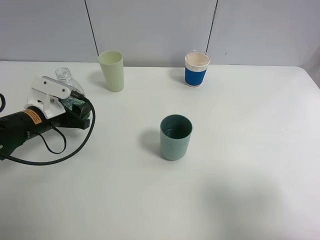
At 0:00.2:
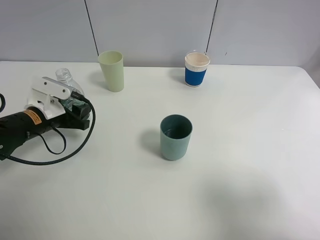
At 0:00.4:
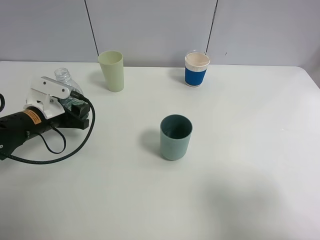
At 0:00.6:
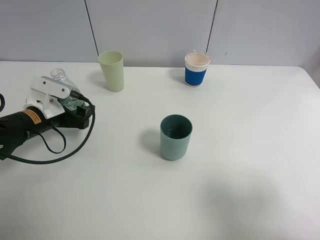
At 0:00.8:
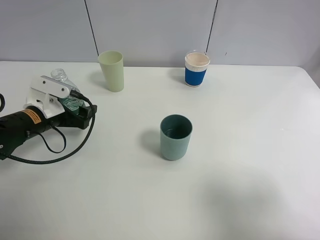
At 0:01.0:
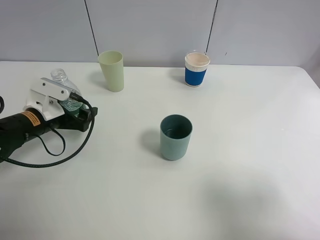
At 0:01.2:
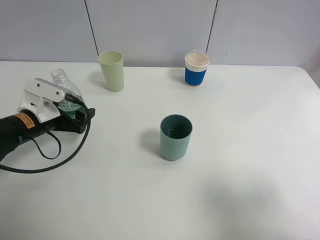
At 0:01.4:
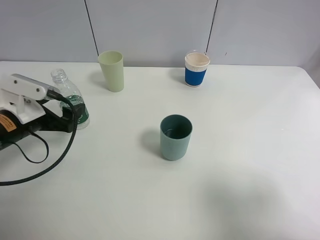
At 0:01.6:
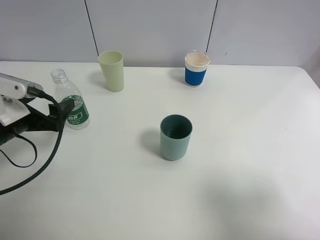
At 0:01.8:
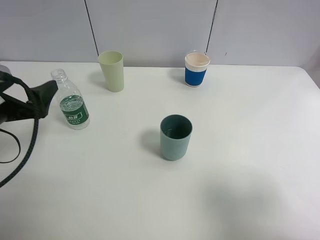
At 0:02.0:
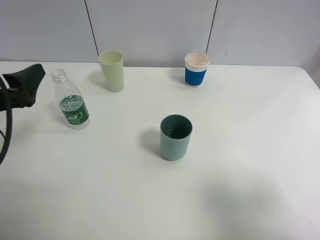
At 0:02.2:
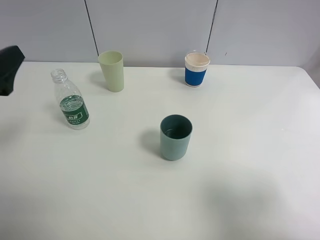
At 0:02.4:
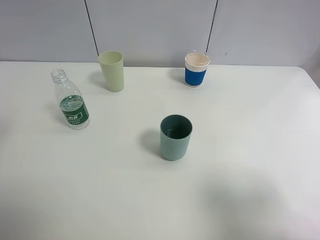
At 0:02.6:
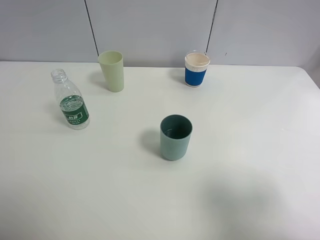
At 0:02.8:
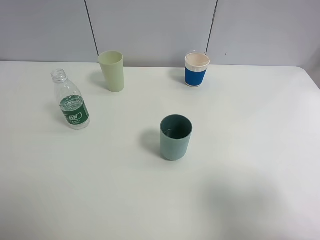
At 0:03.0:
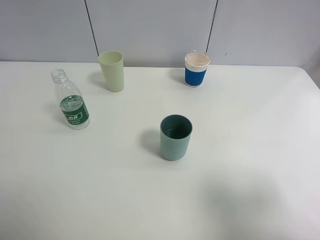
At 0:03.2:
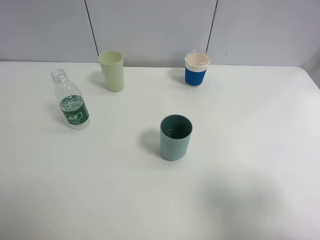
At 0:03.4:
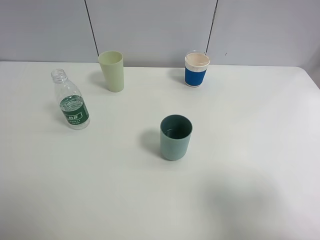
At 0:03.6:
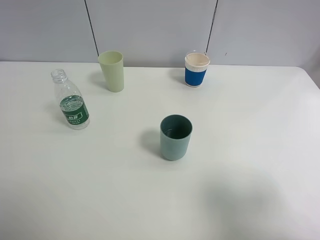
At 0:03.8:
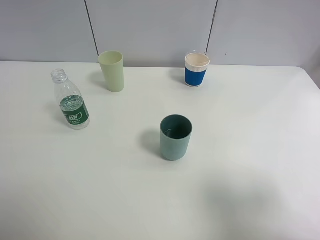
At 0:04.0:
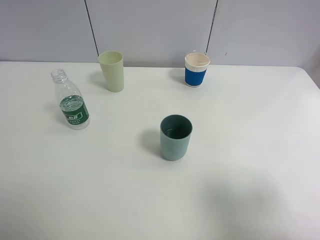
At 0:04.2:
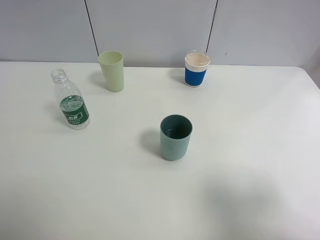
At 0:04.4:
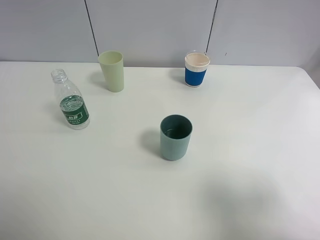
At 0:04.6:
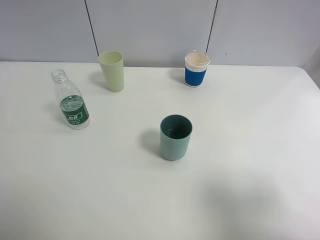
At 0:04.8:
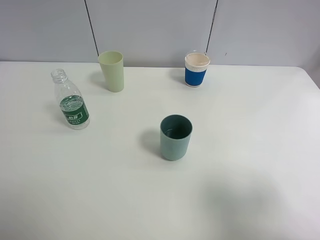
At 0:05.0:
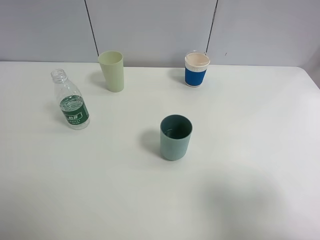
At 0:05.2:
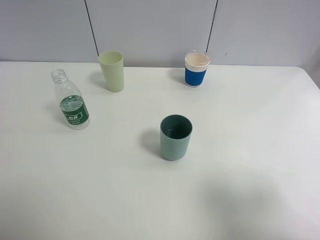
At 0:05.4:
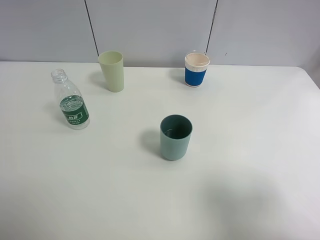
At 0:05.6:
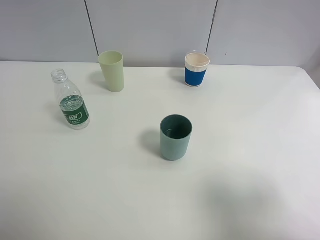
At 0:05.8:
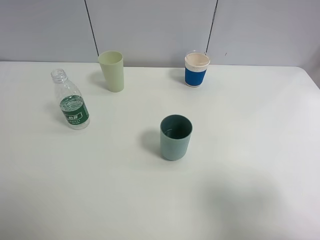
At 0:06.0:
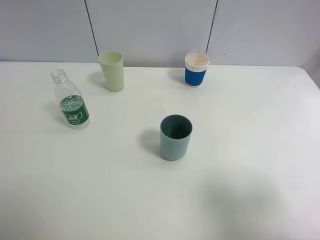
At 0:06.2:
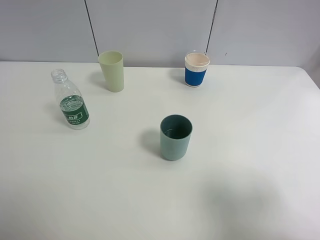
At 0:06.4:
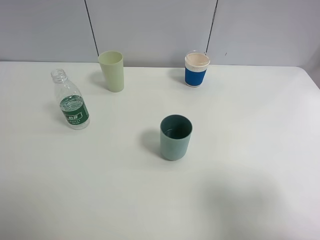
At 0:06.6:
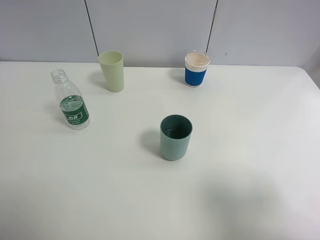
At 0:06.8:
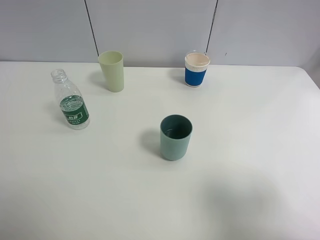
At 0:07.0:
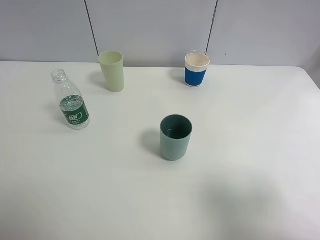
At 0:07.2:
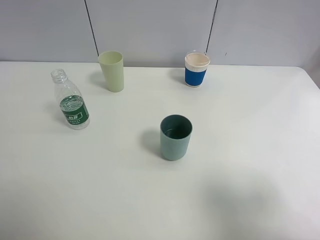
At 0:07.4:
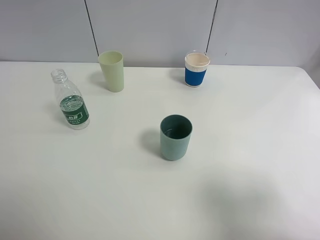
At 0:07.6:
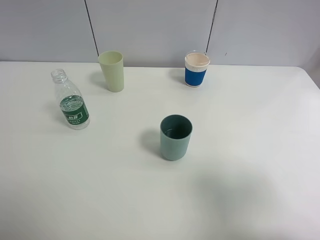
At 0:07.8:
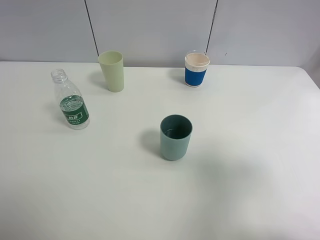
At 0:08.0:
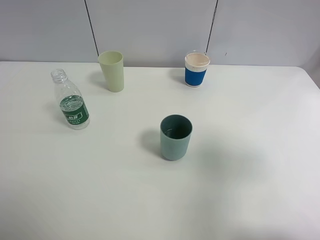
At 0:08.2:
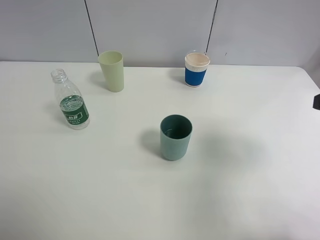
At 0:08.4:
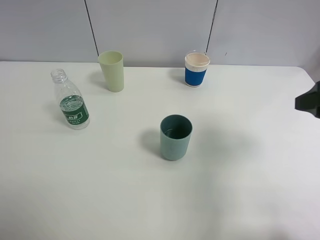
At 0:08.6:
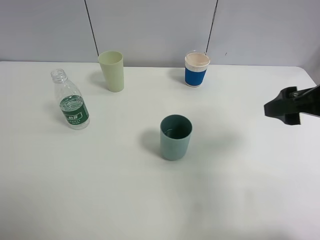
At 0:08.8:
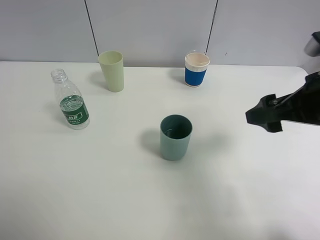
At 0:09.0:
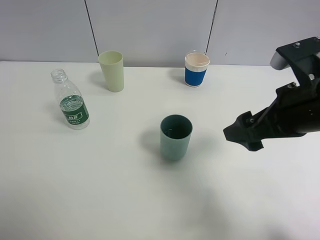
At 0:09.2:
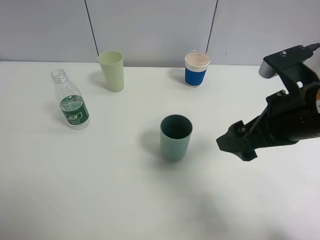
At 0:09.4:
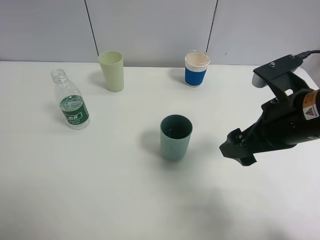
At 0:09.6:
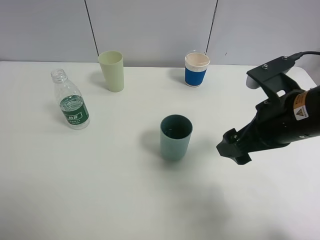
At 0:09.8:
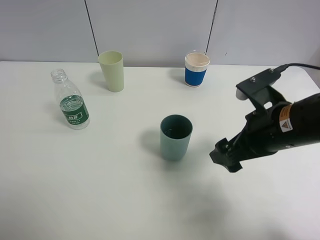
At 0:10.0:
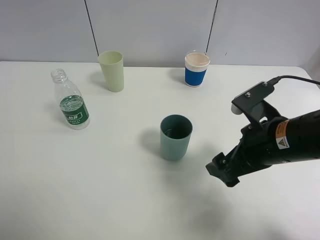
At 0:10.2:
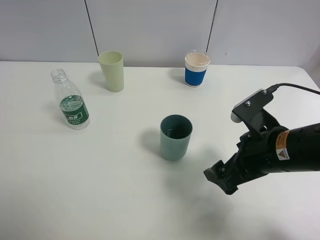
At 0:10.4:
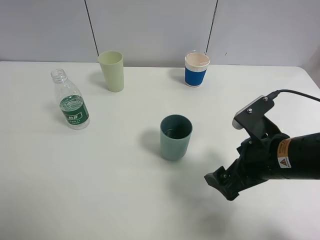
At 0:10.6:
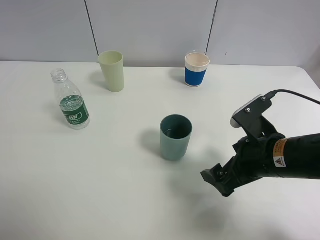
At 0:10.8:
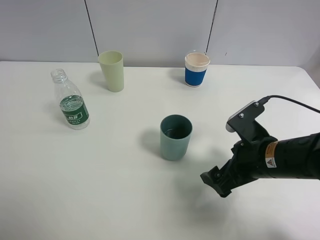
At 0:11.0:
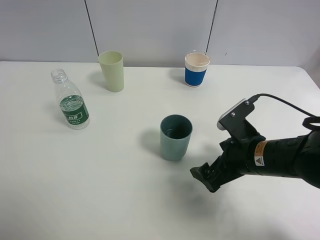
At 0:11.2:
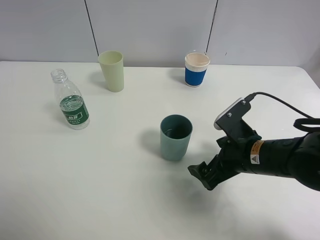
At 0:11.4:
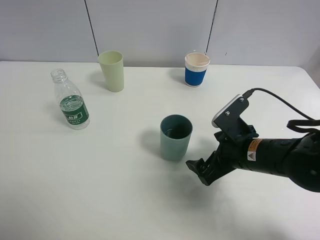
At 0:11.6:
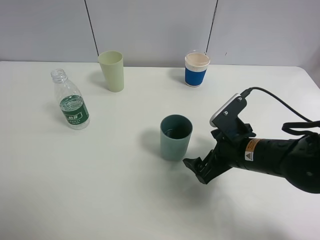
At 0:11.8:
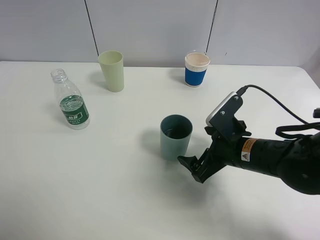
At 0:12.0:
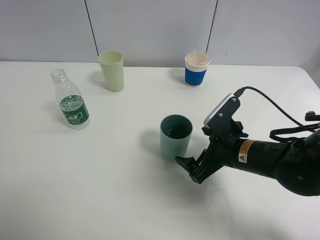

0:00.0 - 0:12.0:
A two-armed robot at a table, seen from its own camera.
Task of the whole recording: use a clamp to hold the bottle of the drink, pour the beverage into a random cup, then clamp the cup containing the drink and pour the drink into another random cup.
0:00.0 - 0:01.6: The left gripper goes about 10 cm backward and upward, and opens its fingers.
0:01.6 - 0:03.0: The left gripper travels backward and upward by roughly 30 cm.
0:04.4 - 0:06.0: The two grippers keep their place.
0:07.6 - 0:09.0: The right gripper travels forward and to the left by about 15 cm.
0:09.0 - 0:10.4: The right gripper goes roughly 10 cm downward.
0:10.4 - 0:12.0: The right gripper heads downward, covering roughly 5 cm.

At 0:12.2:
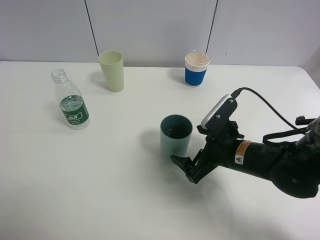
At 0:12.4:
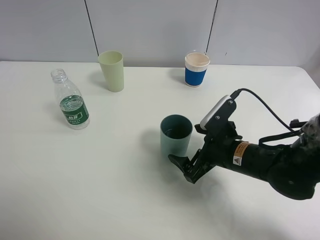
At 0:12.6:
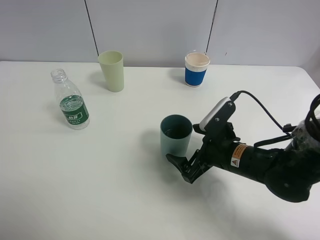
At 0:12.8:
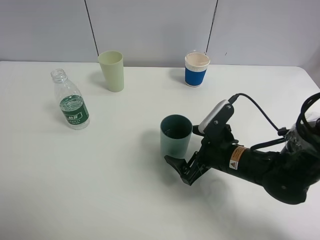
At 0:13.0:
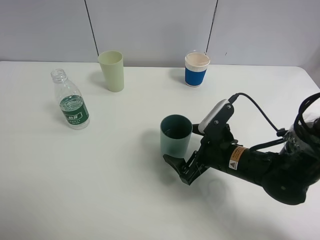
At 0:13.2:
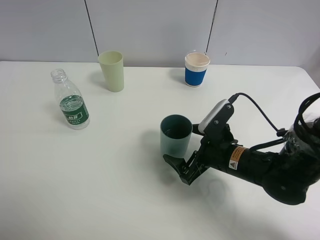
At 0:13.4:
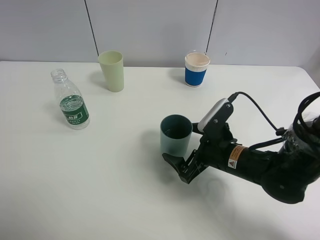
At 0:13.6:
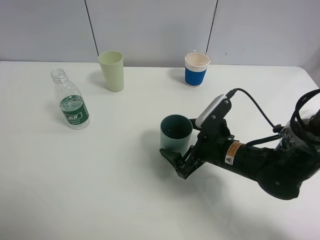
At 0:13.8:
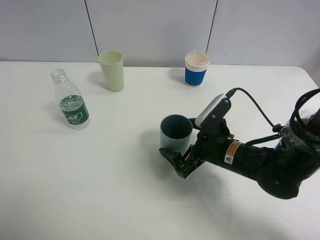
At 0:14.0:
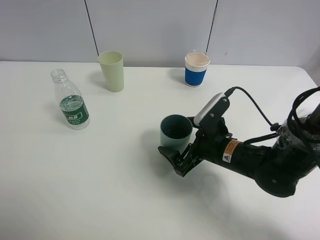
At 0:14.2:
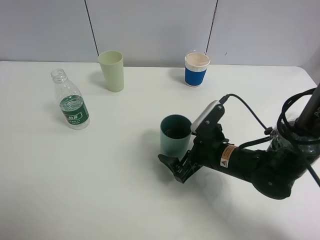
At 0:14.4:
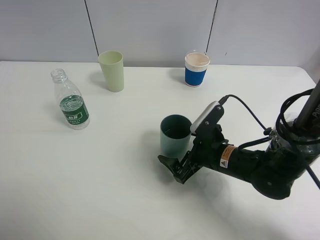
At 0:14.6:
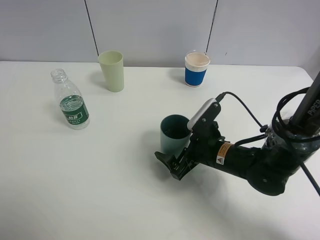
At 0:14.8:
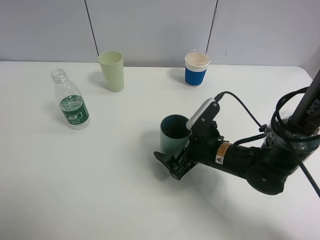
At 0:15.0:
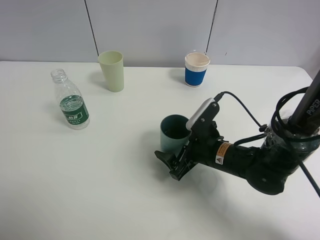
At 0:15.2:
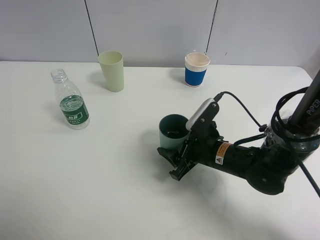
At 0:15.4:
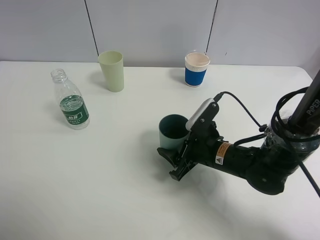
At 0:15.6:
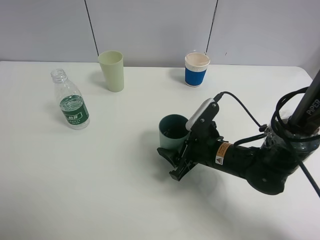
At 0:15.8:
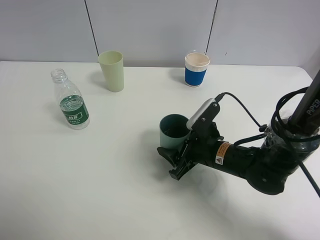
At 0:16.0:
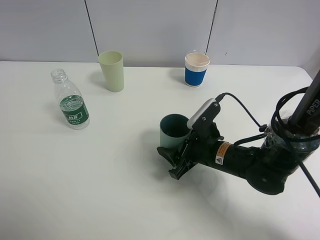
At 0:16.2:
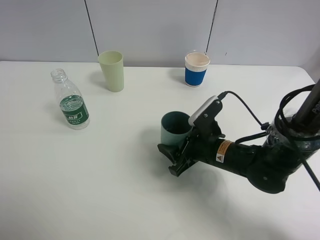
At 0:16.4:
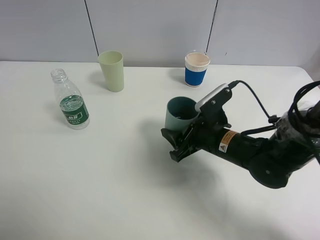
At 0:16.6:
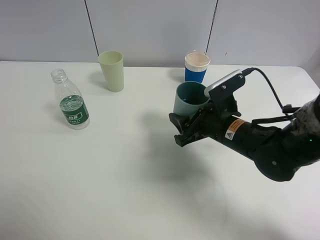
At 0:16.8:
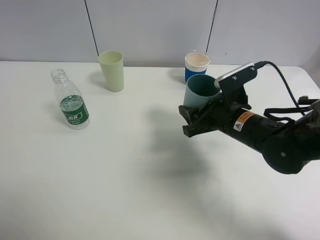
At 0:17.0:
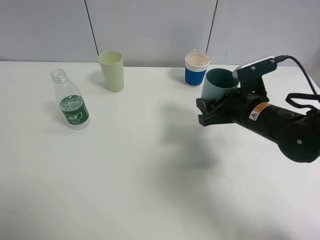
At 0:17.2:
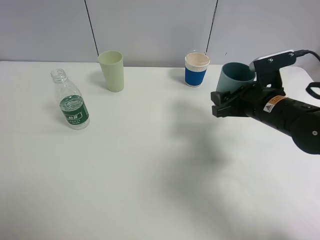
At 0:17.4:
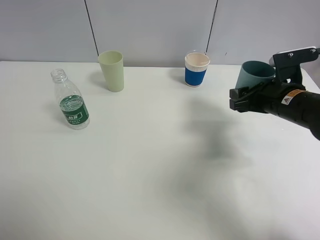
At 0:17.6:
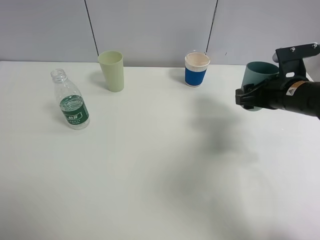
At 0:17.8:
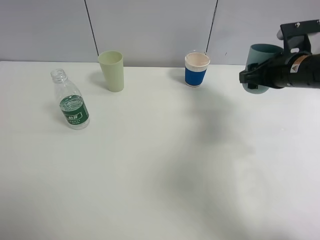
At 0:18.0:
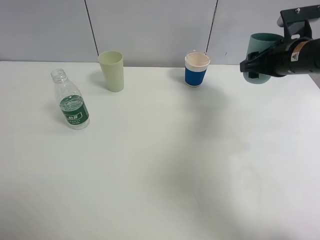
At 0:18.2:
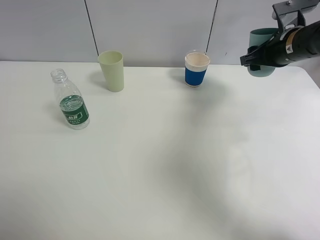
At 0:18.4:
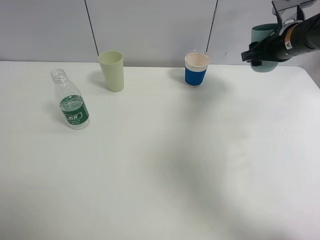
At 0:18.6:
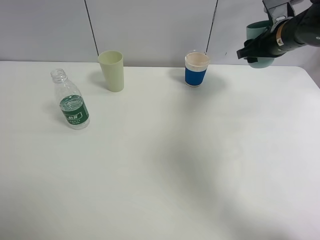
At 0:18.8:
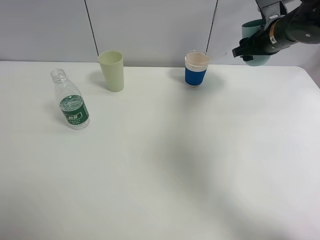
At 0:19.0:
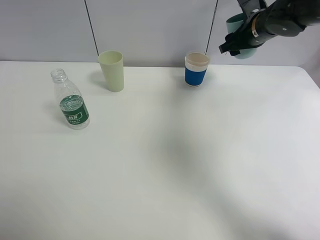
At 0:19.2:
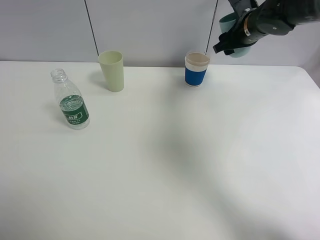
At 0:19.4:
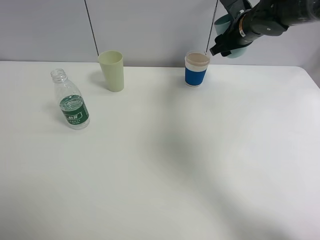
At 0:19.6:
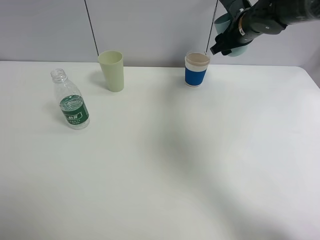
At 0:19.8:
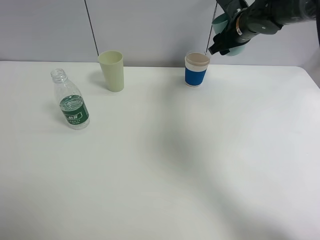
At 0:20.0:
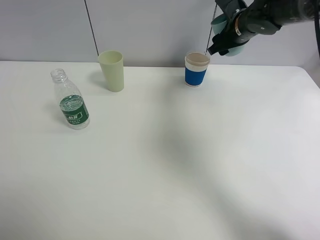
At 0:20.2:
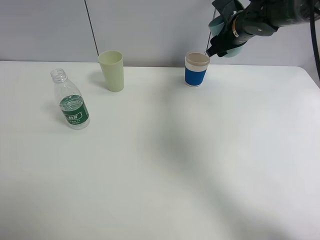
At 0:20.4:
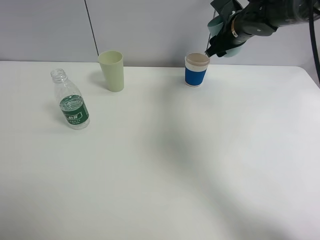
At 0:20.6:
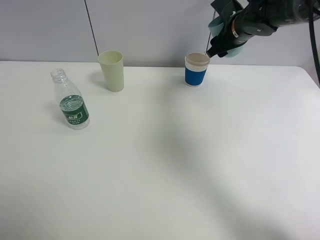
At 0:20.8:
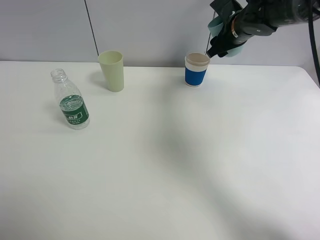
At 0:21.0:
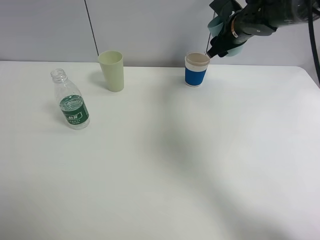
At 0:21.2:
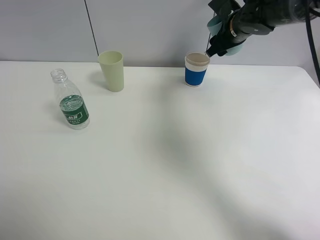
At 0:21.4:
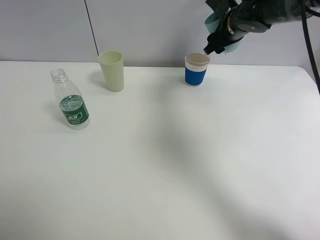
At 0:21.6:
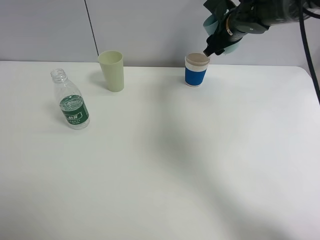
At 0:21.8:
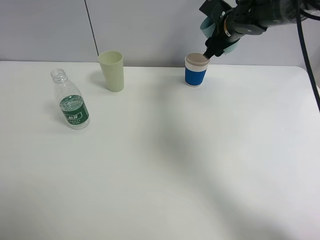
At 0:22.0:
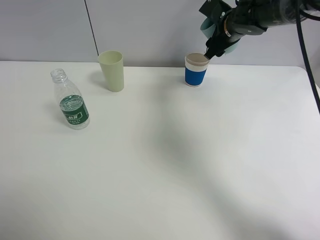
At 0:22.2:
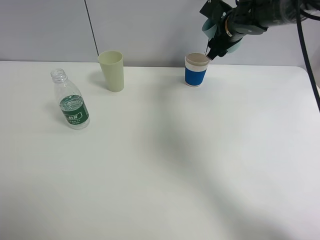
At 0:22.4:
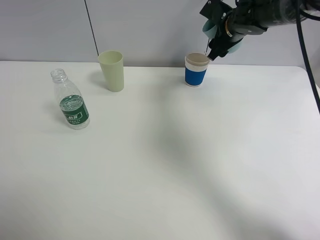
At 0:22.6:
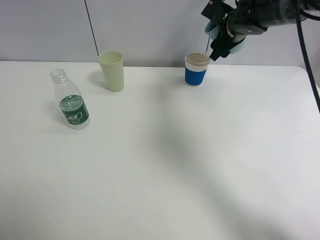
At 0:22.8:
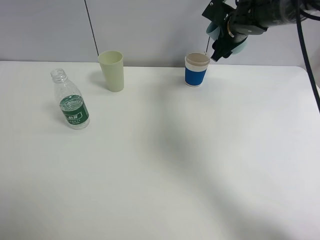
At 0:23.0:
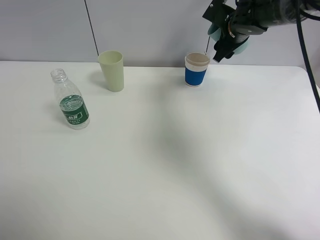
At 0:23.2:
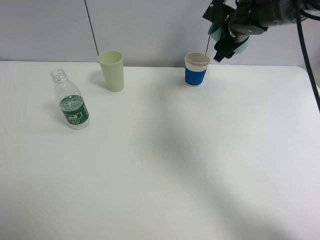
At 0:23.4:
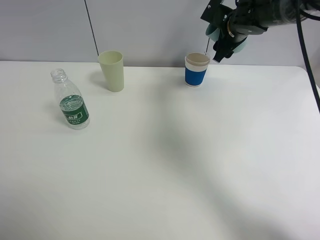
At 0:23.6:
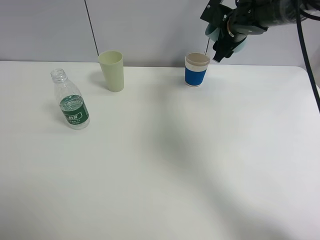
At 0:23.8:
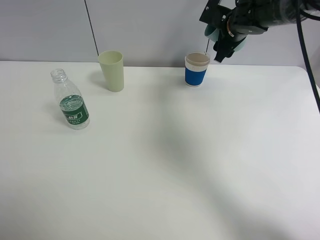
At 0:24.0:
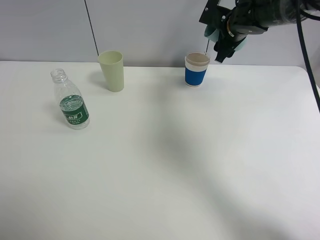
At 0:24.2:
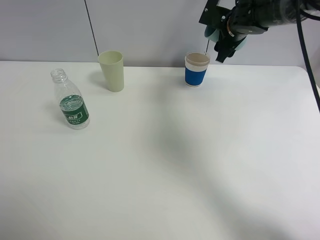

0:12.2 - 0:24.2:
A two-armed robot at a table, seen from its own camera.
Task of the whole recording: use a clamp to hold the bottle of the drink, pour the beverage into a random cup, then clamp the cup containing the drink and pour the drink into another random cup.
Step, 0:12.2 - 0:16.2: Pick up the blue plastic cup bottle with right gripper.
0:12.2 - 0:13.8: There are only small adjustments of the grippers.
0:13.8 - 0:15.2: The right gripper closes its fingers.
0:15.2 - 0:16.6: The right gripper travels upward by roughly 5 cm.
0:16.6 - 0:18.2: The right gripper goes some 20 cm to the right, forward and upward.
0:18.2 - 0:19.8: The right gripper heads forward and to the left, covering roughly 10 cm.
0:19.8 - 0:22.6: There are only small adjustments of the grippers.
0:22.6 - 0:24.2: The grippers make only small movements.
